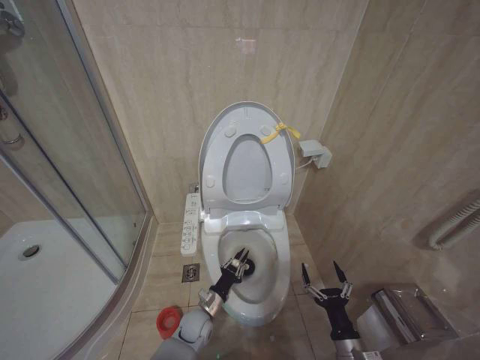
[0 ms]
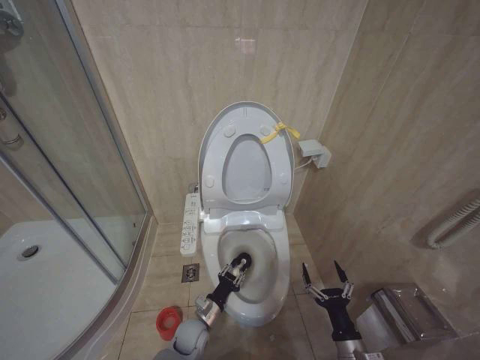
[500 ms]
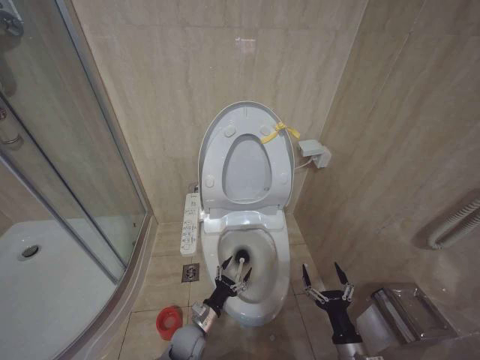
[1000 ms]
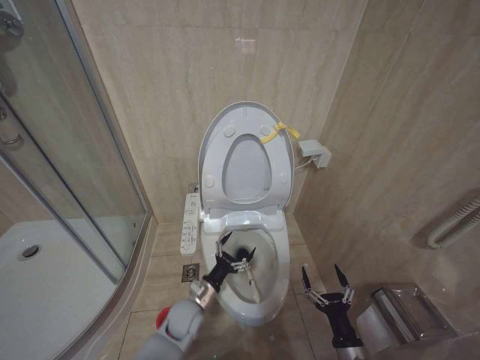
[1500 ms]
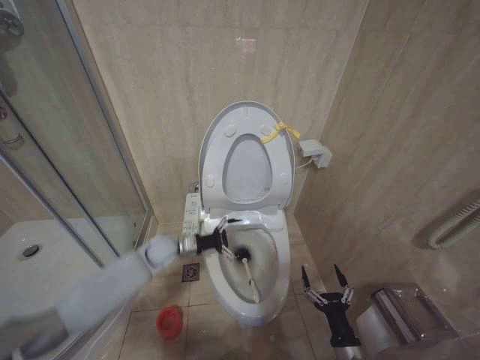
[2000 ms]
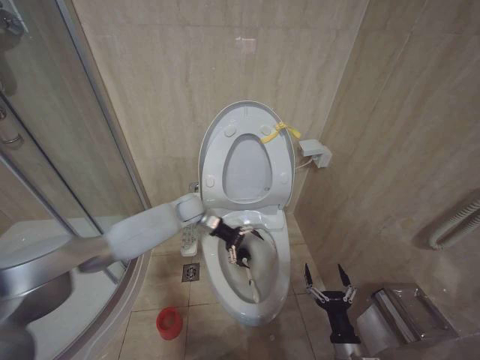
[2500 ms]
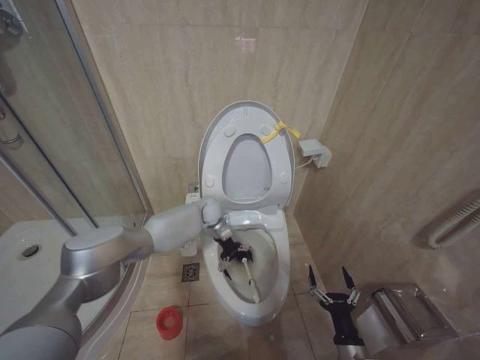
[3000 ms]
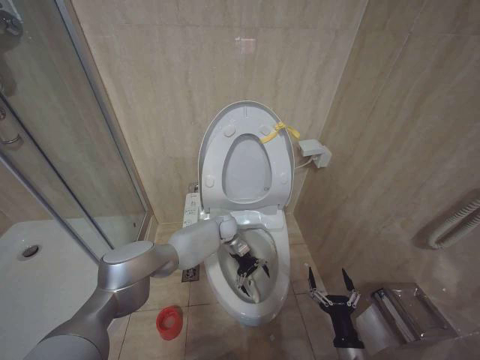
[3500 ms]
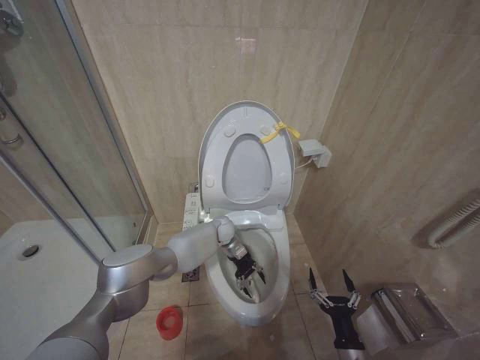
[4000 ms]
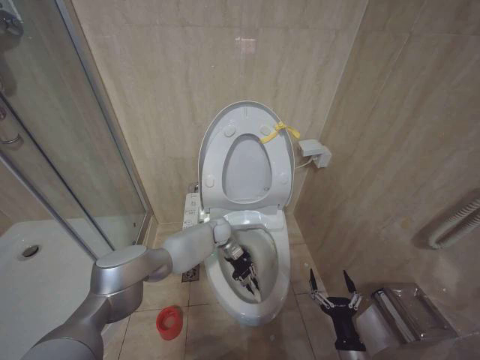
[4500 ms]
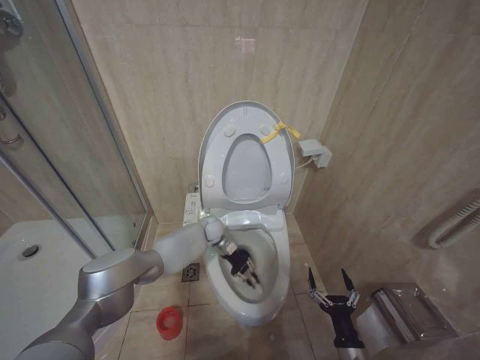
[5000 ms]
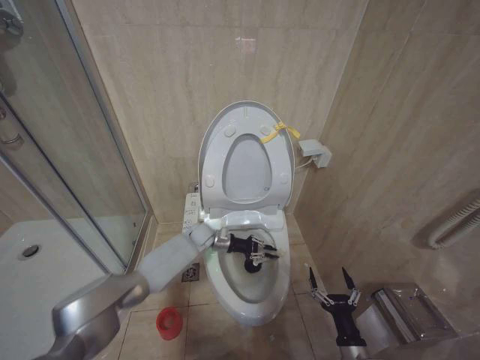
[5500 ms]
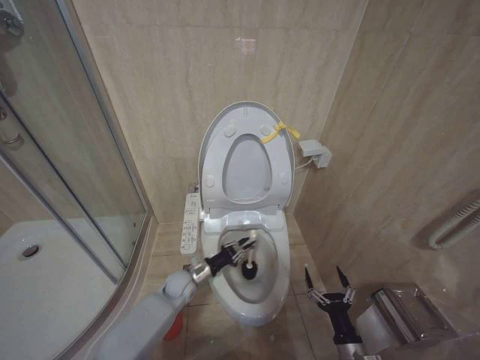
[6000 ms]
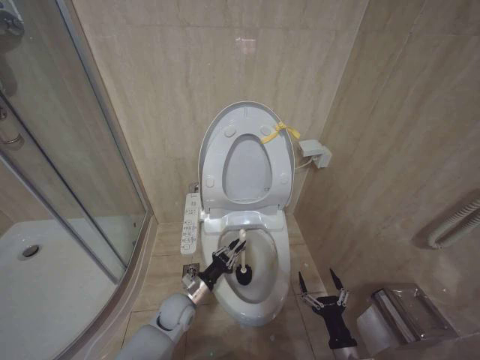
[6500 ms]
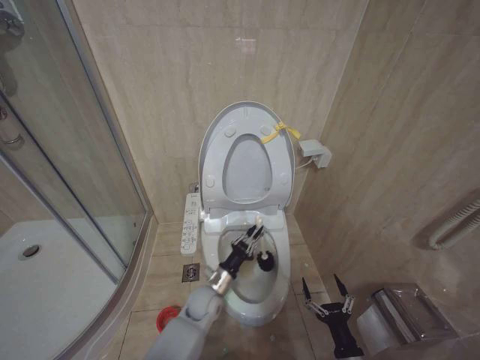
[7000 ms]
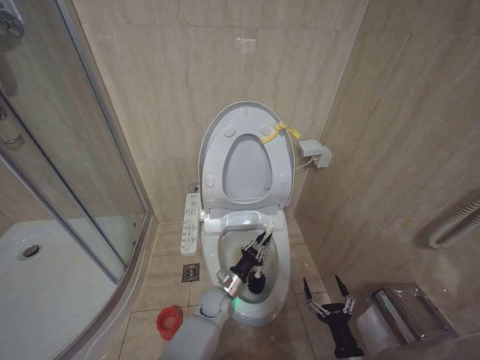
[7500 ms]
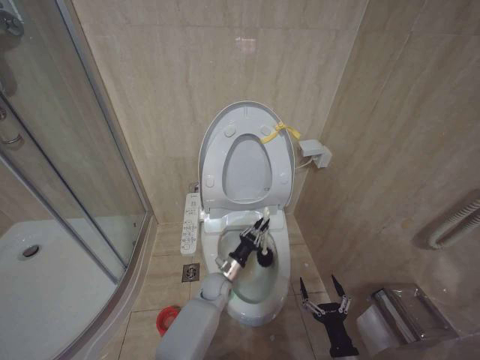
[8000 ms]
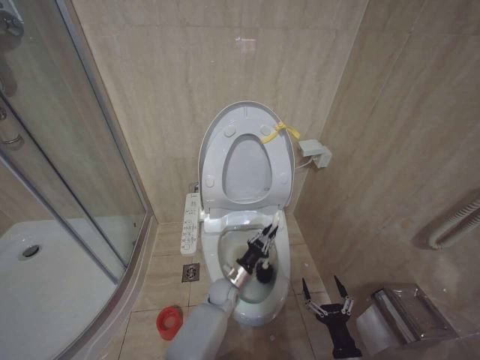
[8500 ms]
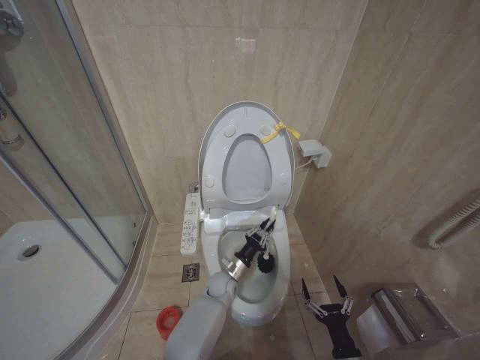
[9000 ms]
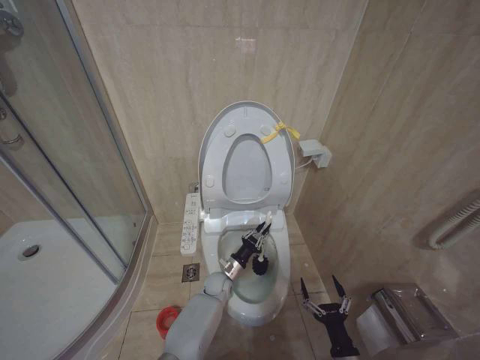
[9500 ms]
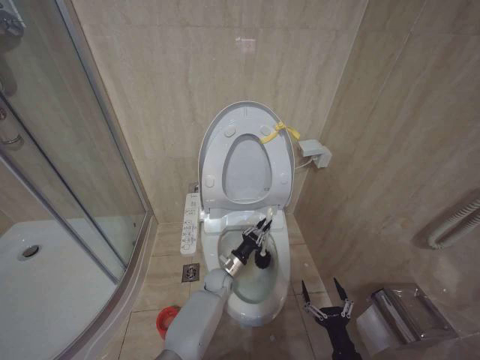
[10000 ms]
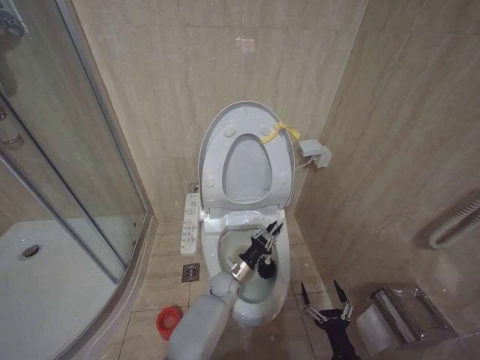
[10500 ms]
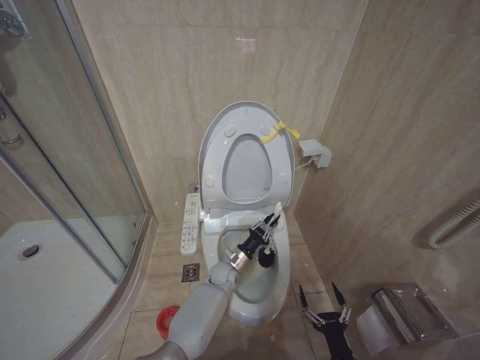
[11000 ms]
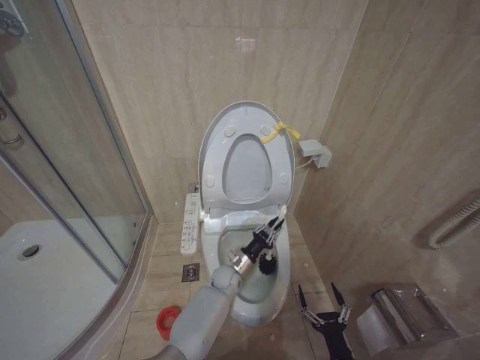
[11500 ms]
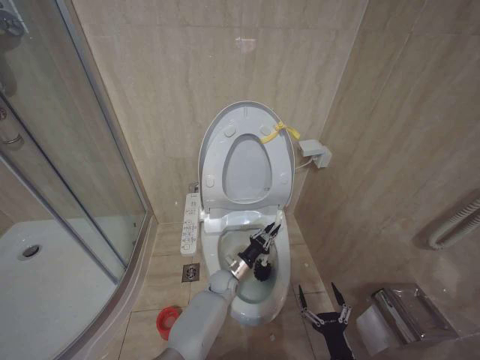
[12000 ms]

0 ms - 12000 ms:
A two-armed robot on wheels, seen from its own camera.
Task of the whole recording: Open the toilet lid, clean the toilet bowl with a toilet brush, close the toilet lid, and flush.
0 ms - 2000 ms: The left gripper goes about 20 cm upward, forward and to the left, and opens up.
2000 ms - 4000 ms: The left gripper shifts roughly 20 cm to the right and forward.
4000 ms - 6000 ms: The left gripper heads backward, to the left and downward, covering some 20 cm, and closes.
6000 ms - 8000 ms: The left gripper travels to the right by some 10 cm.
10000 ms - 12000 ms: There are only small adjustments of the grippers.

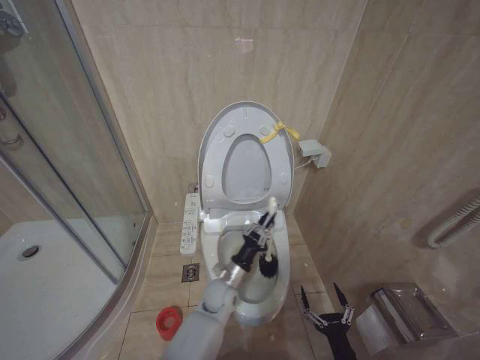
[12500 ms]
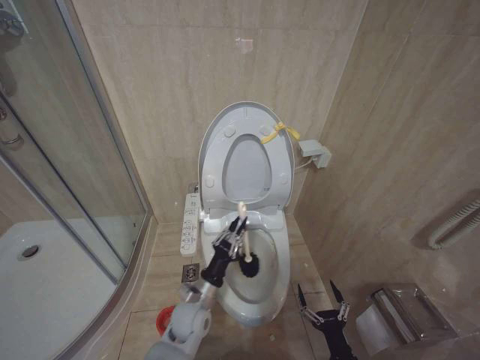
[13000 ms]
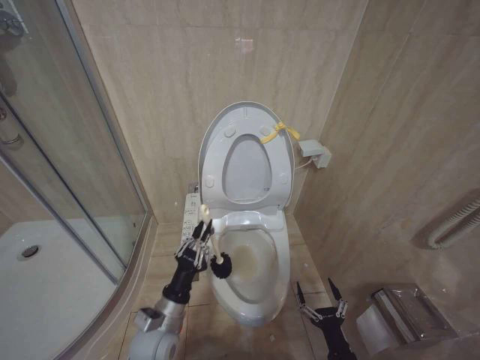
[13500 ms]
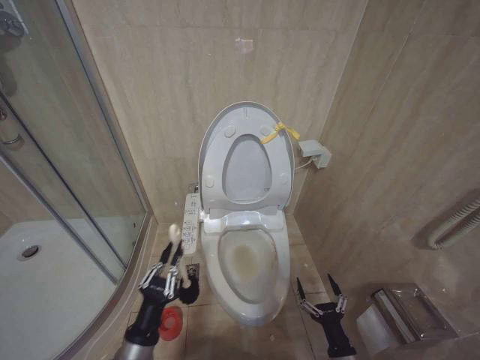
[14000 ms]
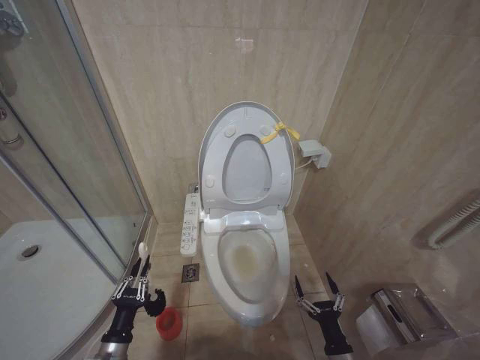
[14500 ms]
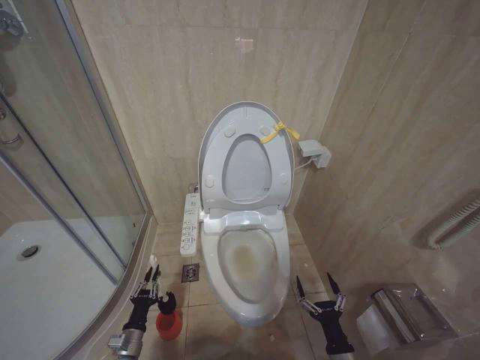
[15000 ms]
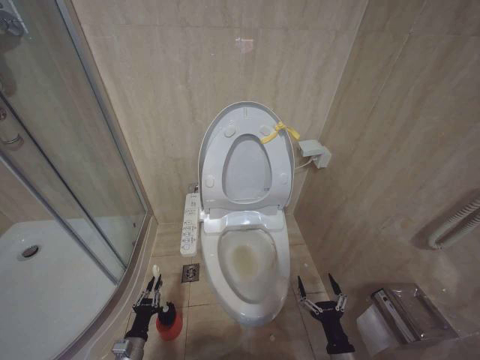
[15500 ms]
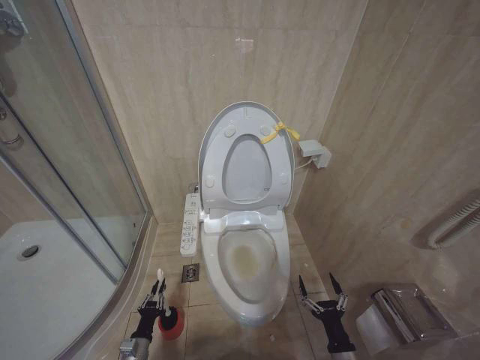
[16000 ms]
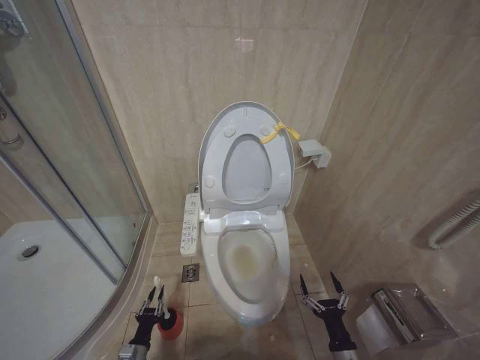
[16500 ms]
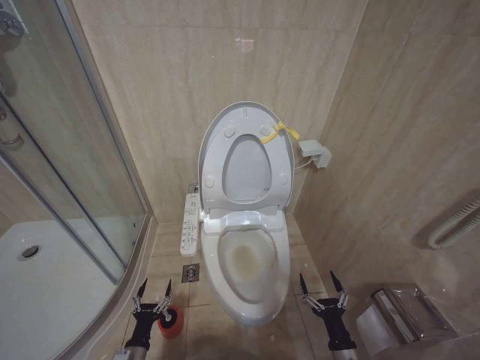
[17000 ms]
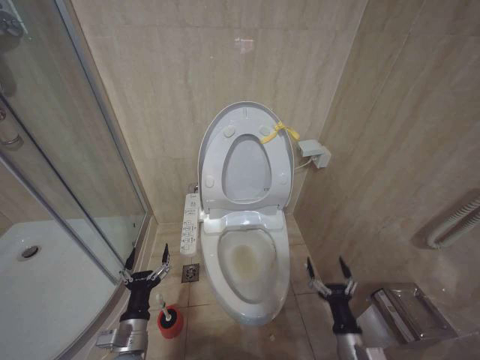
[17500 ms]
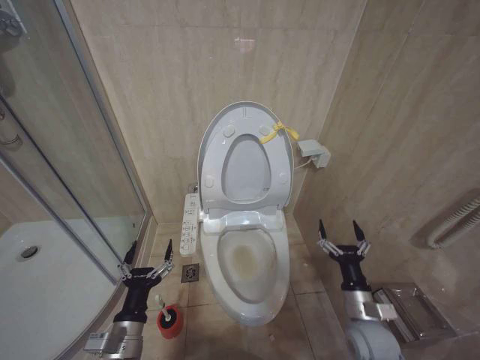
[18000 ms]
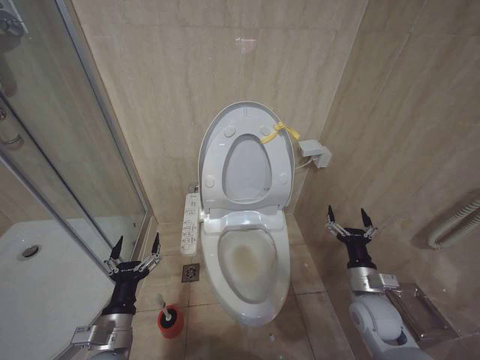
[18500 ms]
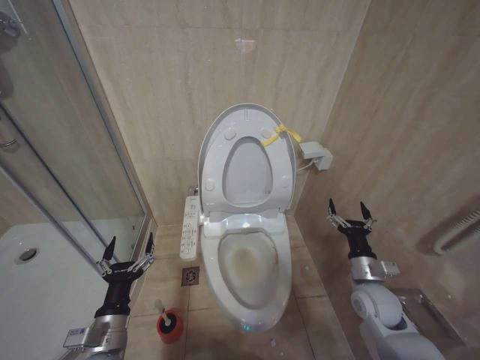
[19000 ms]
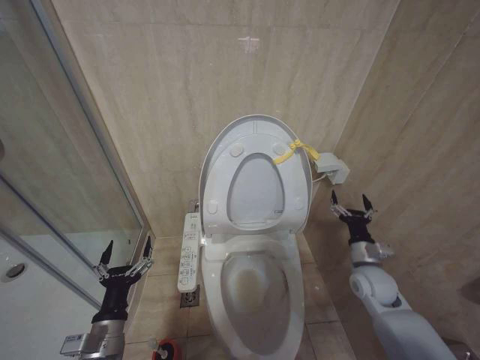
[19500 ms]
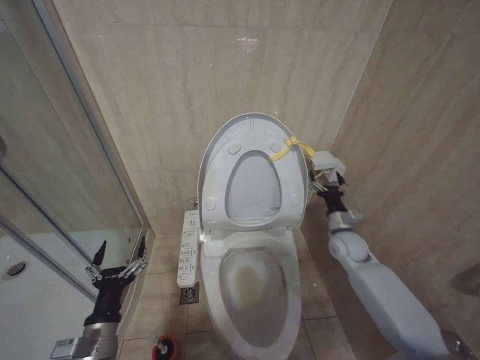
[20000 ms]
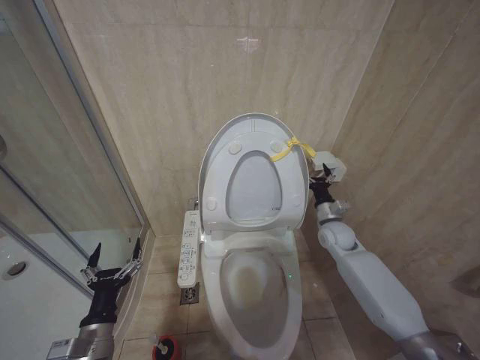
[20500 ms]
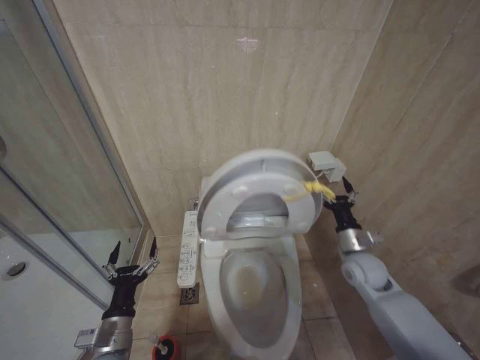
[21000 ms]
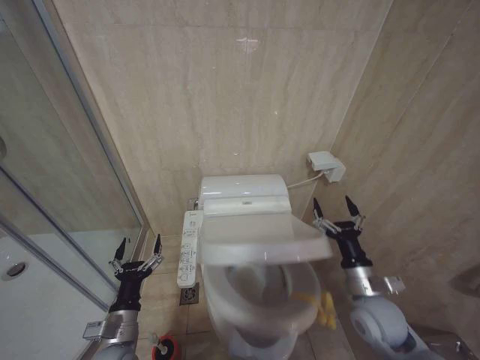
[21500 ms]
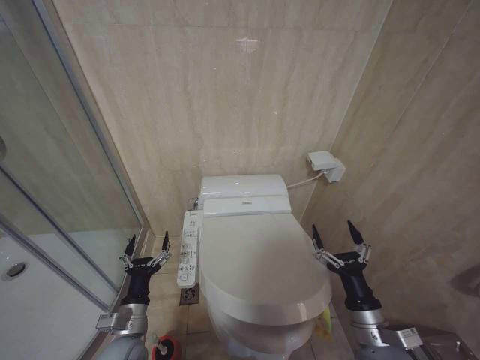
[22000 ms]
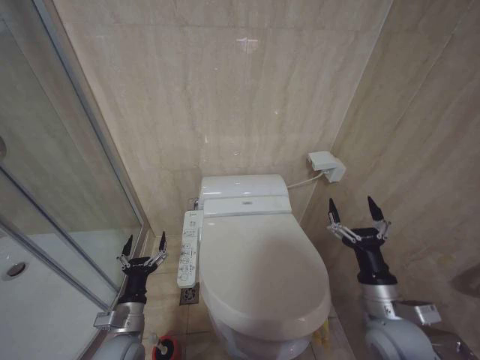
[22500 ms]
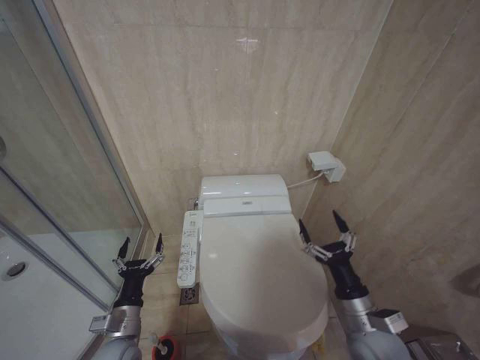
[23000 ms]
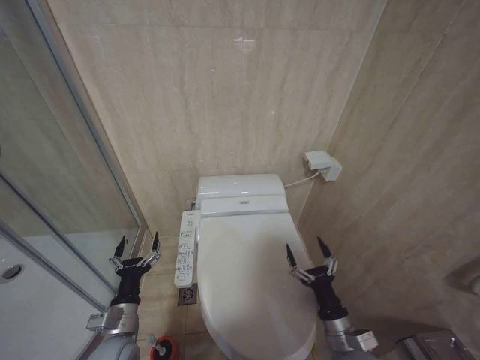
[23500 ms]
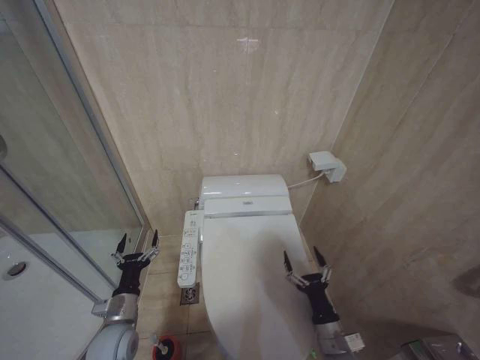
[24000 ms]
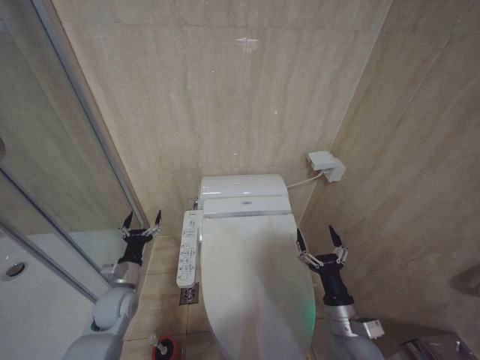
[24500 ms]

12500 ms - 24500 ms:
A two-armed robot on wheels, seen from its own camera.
Task of the whole recording: Open the toilet lid, clean the toilet bowl with a toilet brush, close the toilet lid, and flush.
12500 ms - 14500 ms: The left gripper shifts approximately 35 cm to the left and backward.
14500 ms - 16500 ms: The left gripper shifts roughly 15 cm downward.
16500 ms - 18500 ms: The left gripper heads upward, covering some 25 cm, and opens; the right gripper heads upward and forward, covering about 20 cm.
18500 ms - 20500 ms: The right gripper travels forward by some 20 cm.
20500 ms - 22500 ms: The left gripper travels forward by about 5 cm. Meanwhile the right gripper heads backward, covering about 25 cm.
22500 ms - 24500 ms: The right gripper travels downward by about 10 cm; the left gripper is displaced forward by about 10 cm.

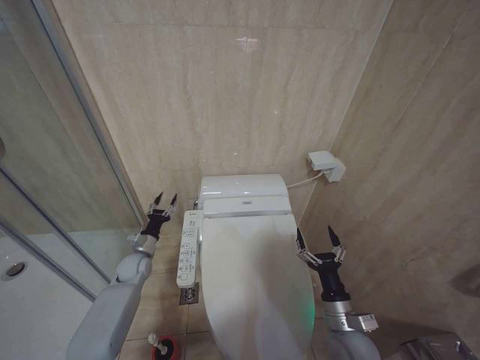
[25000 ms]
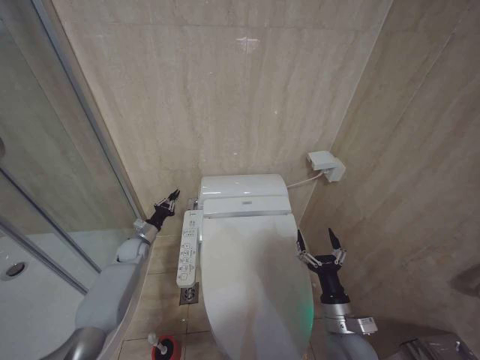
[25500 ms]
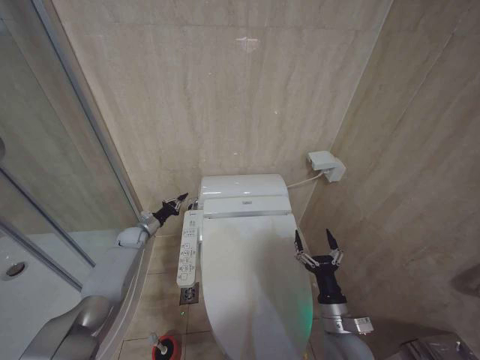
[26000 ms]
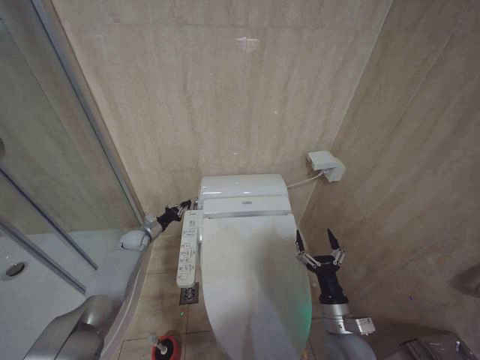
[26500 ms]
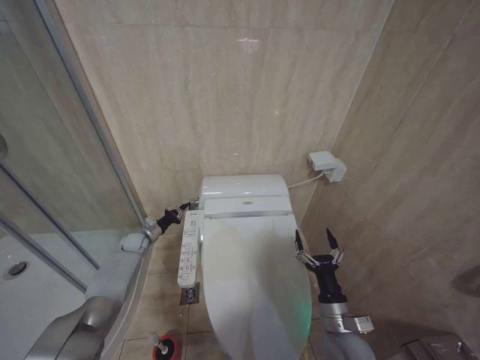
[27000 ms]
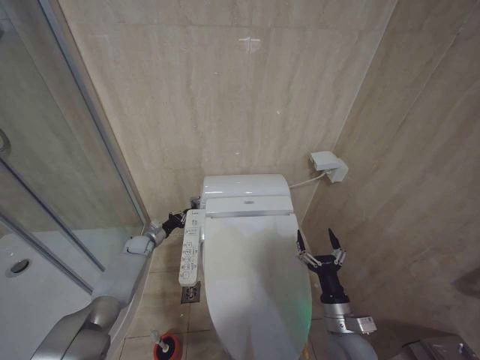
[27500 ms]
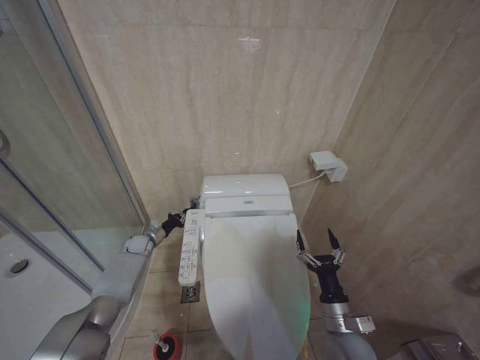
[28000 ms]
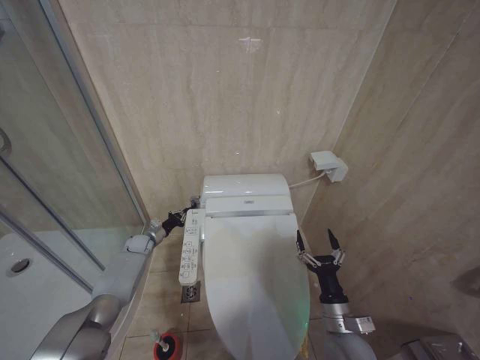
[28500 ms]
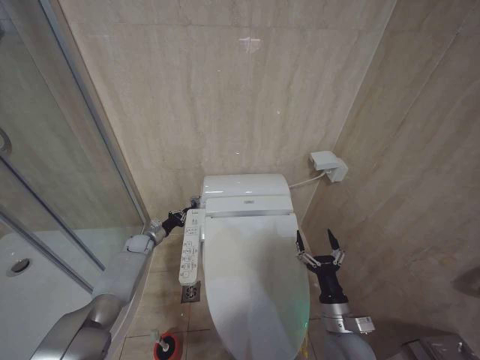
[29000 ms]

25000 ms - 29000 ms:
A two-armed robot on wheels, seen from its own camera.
Task of the whole recording: Open the toilet lid, clean the toilet bowl with a toilet brush, close the toilet lid, and flush.
25000 ms - 27000 ms: The left gripper heads forward, covering approximately 10 cm, and closes.
27000 ms - 29000 ms: The grippers stay close to where they were, moving slightly.
